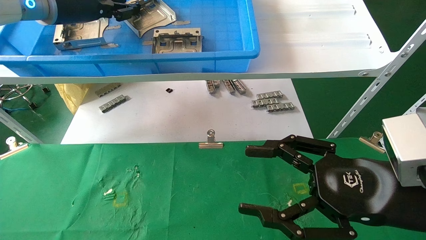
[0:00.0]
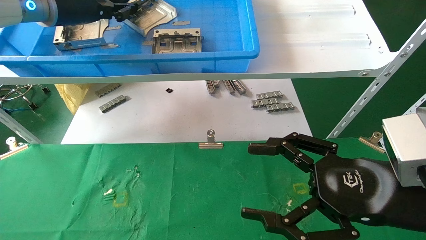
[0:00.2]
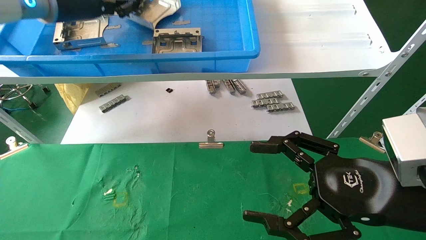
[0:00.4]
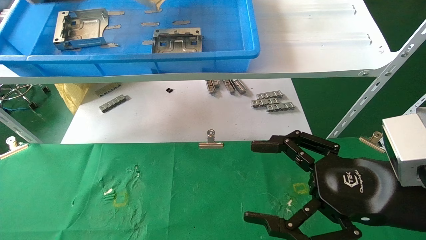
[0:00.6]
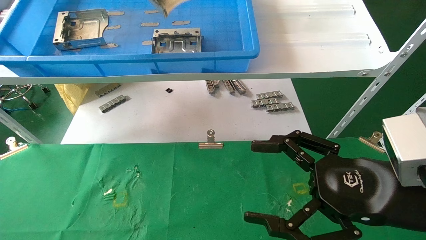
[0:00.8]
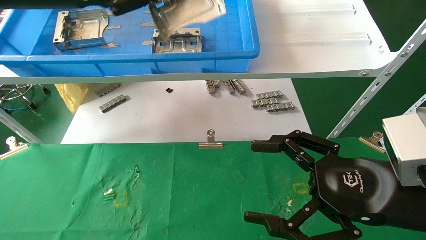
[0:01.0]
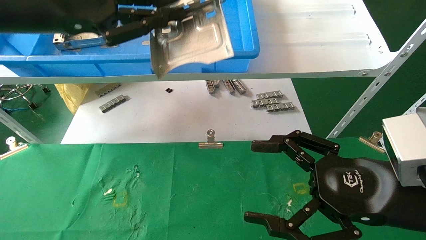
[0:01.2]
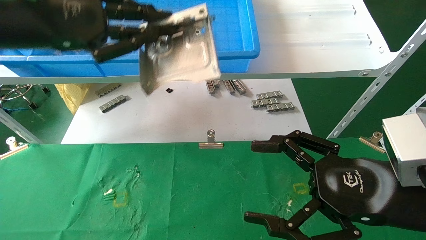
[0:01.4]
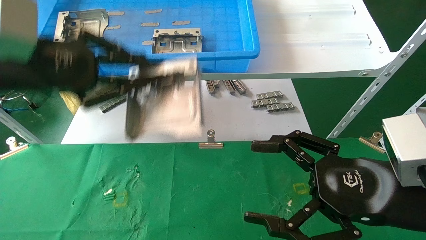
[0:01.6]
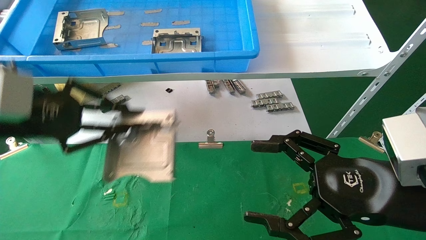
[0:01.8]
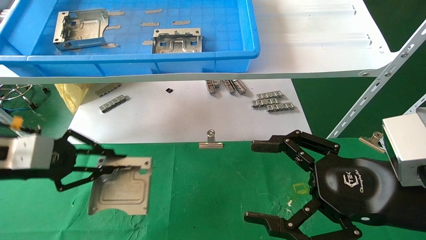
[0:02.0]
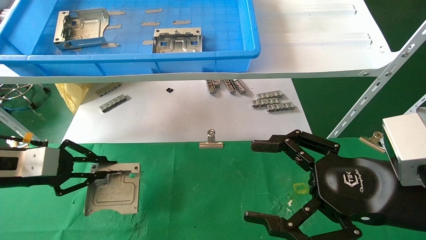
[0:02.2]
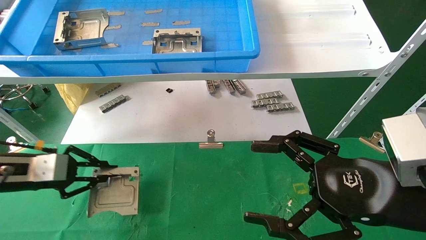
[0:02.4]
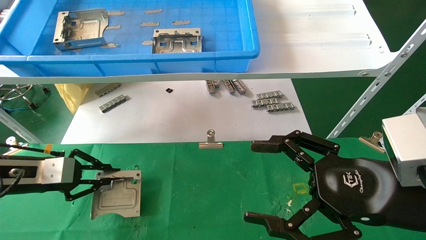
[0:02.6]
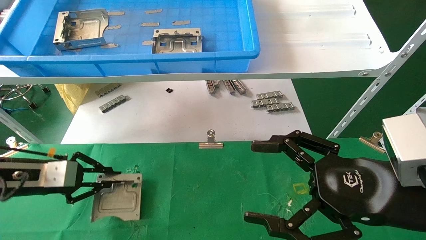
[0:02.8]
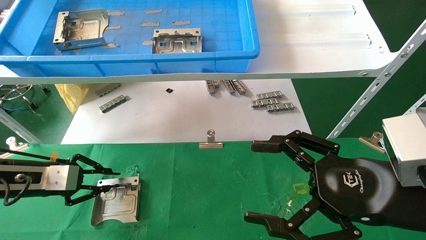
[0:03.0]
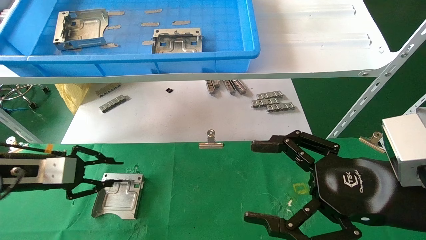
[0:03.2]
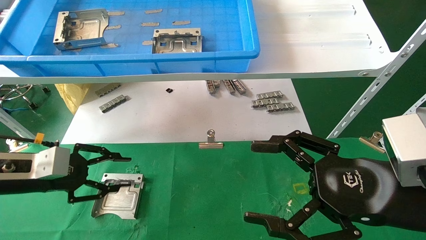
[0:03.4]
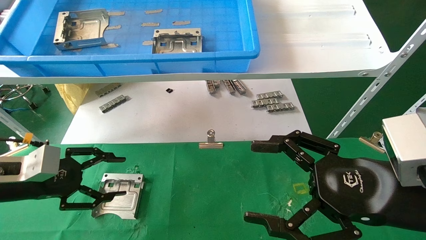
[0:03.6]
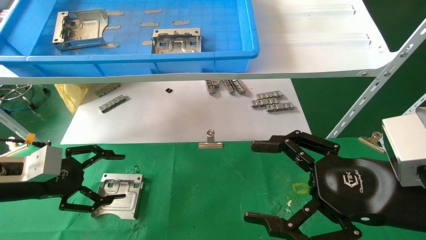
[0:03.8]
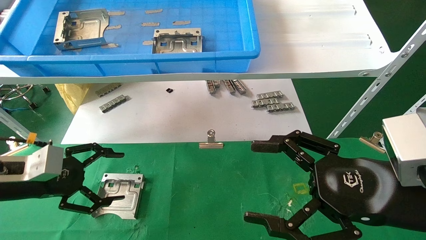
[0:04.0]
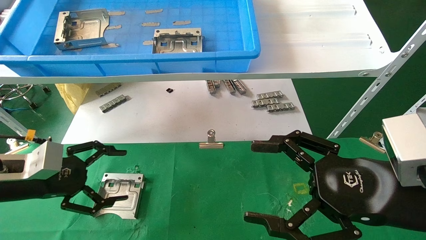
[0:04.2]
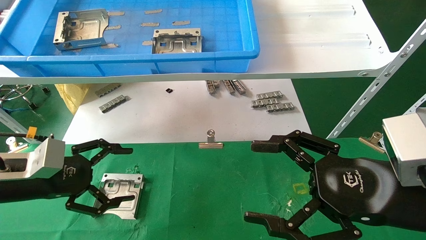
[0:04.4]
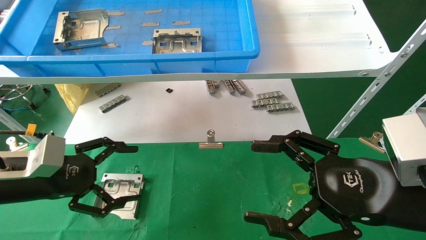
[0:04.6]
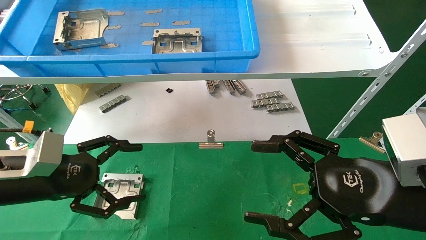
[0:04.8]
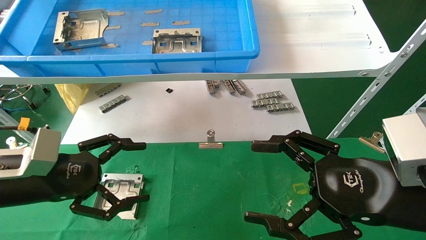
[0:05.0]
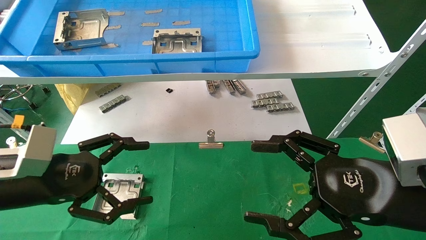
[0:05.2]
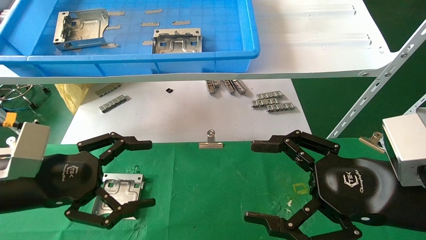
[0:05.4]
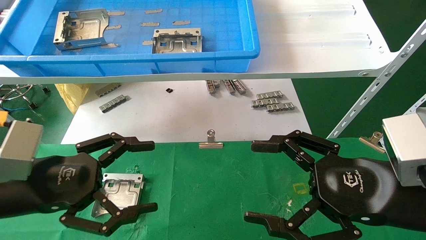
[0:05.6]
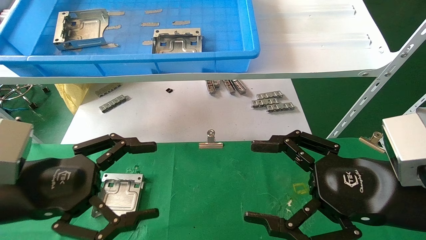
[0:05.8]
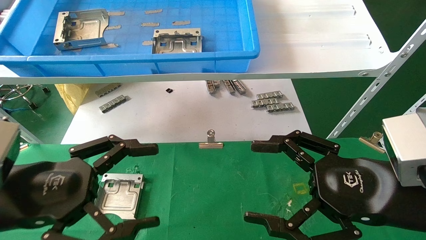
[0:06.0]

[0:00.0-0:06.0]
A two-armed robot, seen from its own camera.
Task of the whole recording: use the mechanical arm to pick up the parts and place them on the table.
Step, 0:00.4 to 0:03.0: Place the hard drive bracket into the box.
0:00.0 to 0:01.6: The left gripper shifts roughly 20 cm backward and downward, and closes its fingers. The right gripper opens.
0:01.6 to 0:03.0: The left gripper goes roughly 20 cm downward and to the left.
0:03.0 to 0:04.4: The left gripper moves approximately 5 cm, and opens its fingers.
0:04.4 to 0:06.0: The left gripper heads backward and to the right, covering approximately 10 cm.
